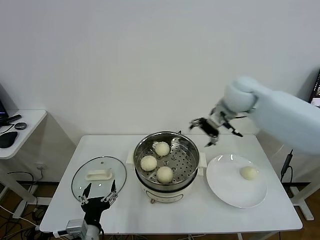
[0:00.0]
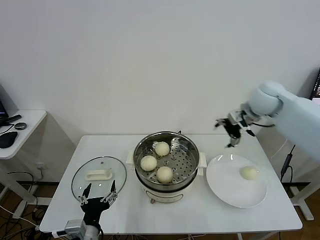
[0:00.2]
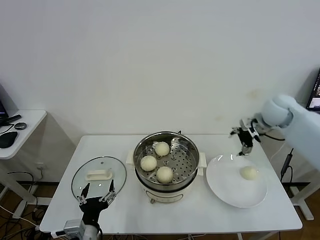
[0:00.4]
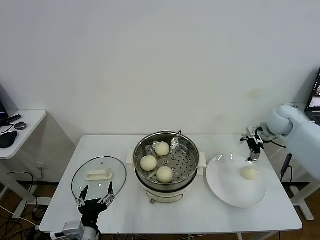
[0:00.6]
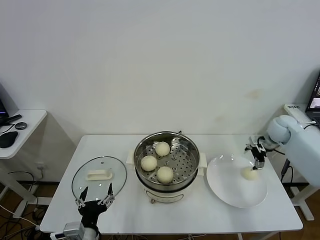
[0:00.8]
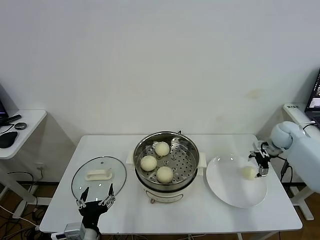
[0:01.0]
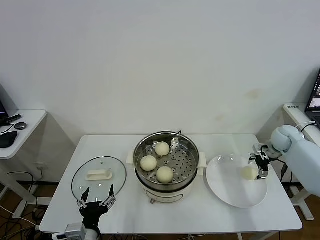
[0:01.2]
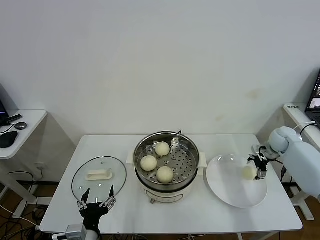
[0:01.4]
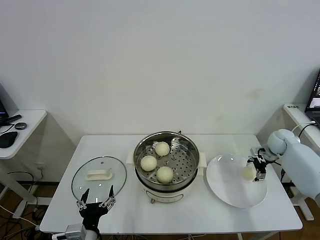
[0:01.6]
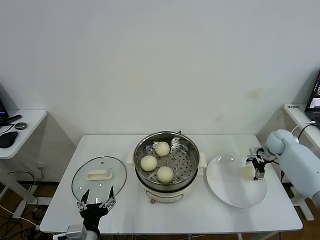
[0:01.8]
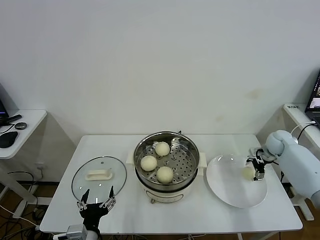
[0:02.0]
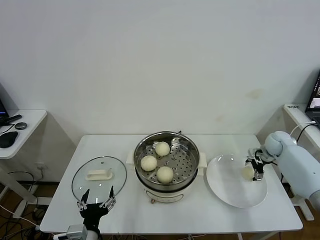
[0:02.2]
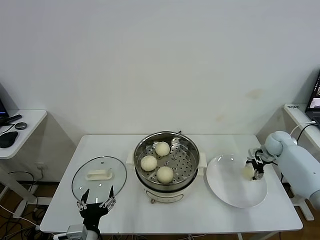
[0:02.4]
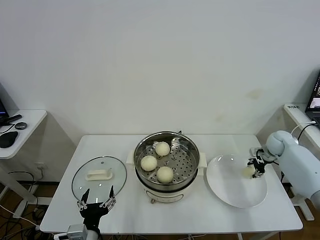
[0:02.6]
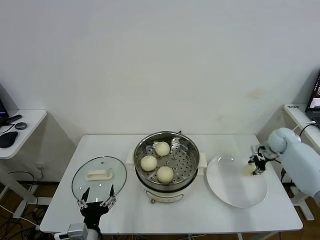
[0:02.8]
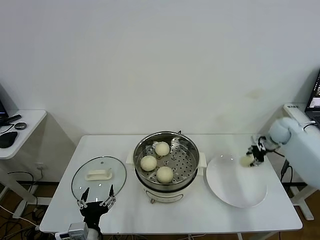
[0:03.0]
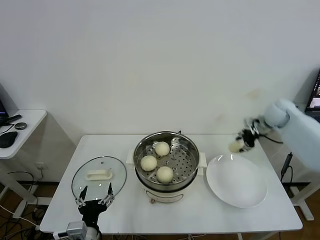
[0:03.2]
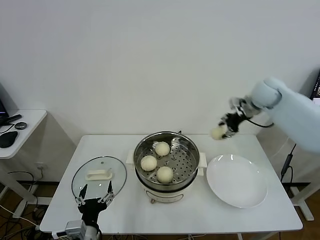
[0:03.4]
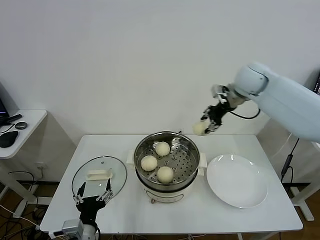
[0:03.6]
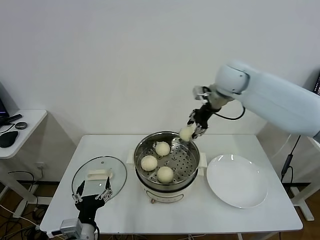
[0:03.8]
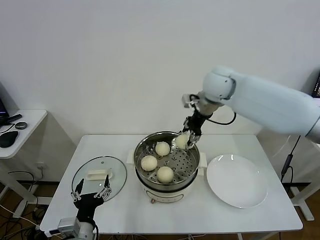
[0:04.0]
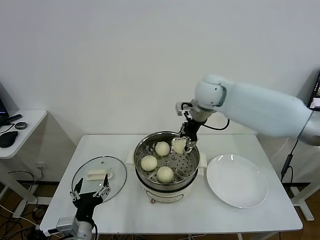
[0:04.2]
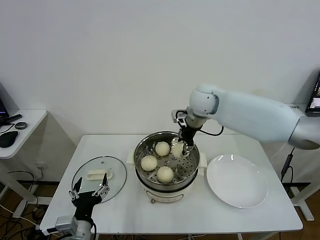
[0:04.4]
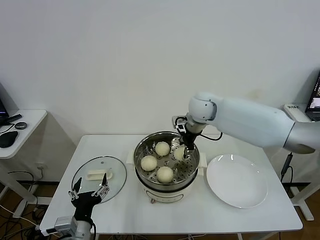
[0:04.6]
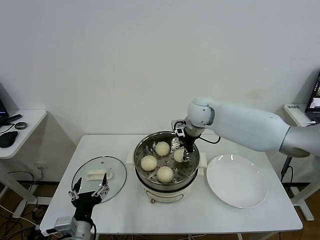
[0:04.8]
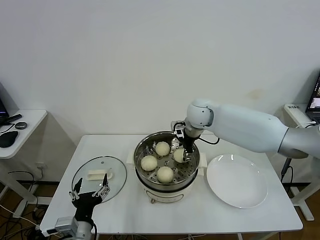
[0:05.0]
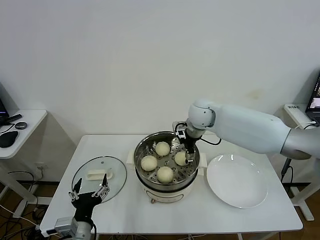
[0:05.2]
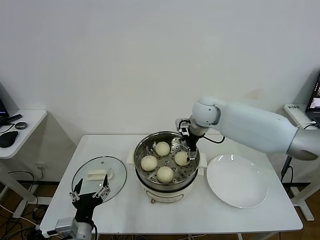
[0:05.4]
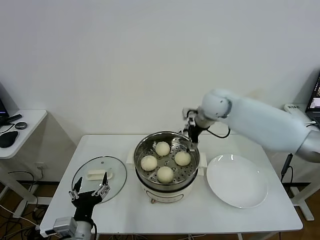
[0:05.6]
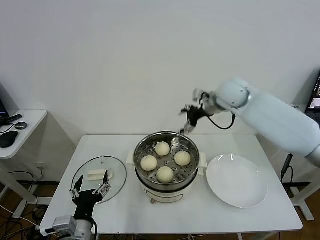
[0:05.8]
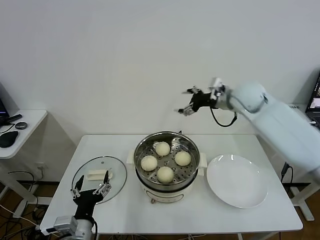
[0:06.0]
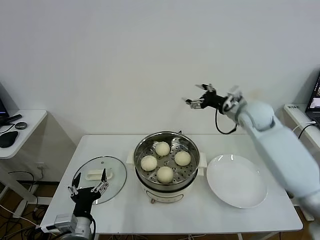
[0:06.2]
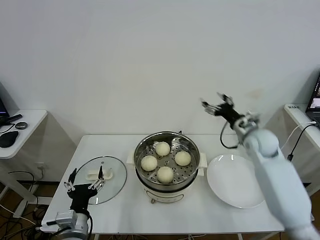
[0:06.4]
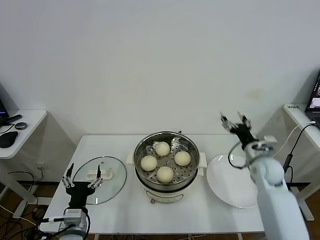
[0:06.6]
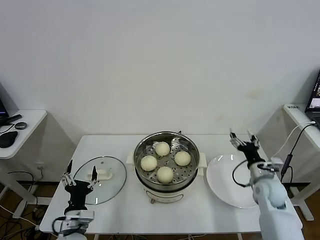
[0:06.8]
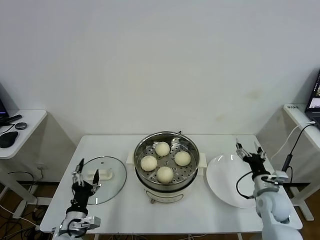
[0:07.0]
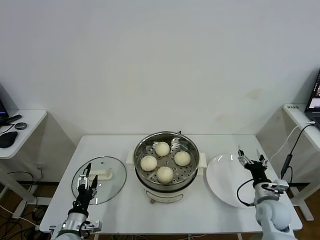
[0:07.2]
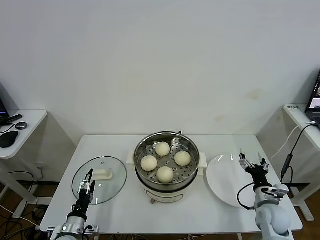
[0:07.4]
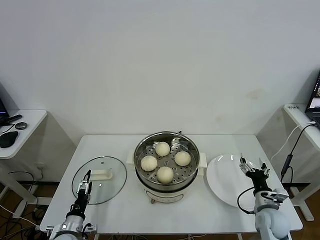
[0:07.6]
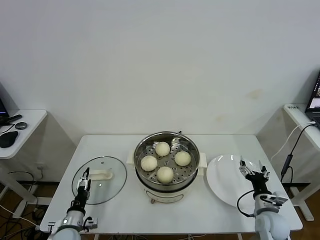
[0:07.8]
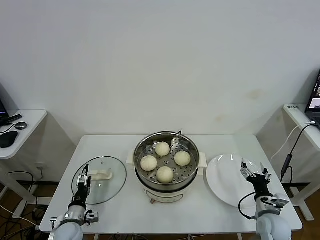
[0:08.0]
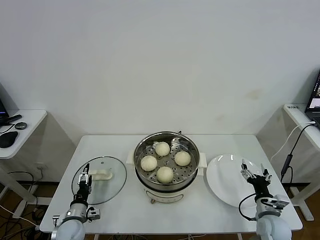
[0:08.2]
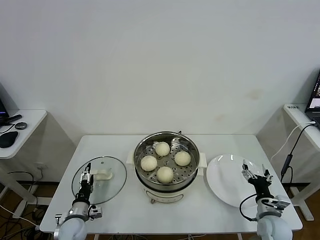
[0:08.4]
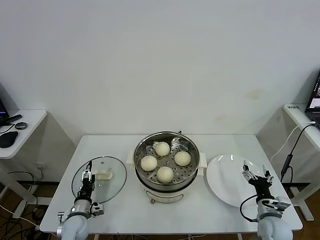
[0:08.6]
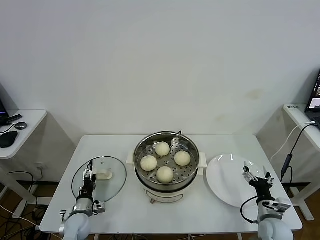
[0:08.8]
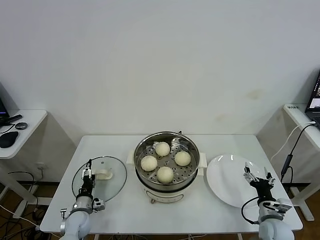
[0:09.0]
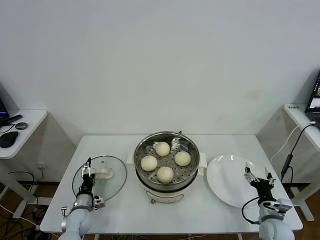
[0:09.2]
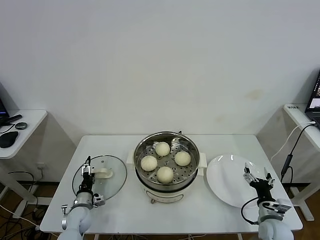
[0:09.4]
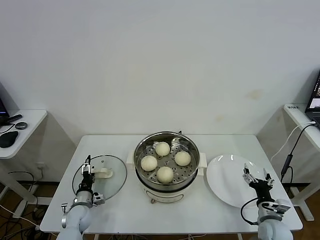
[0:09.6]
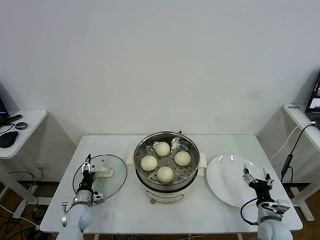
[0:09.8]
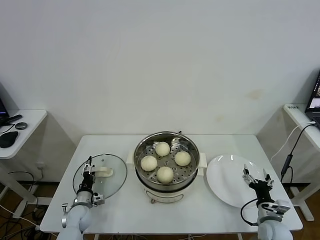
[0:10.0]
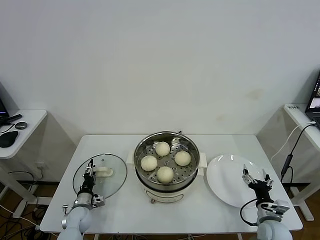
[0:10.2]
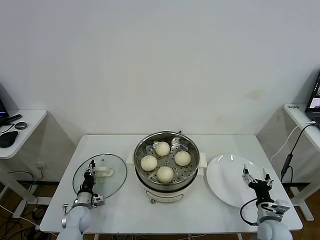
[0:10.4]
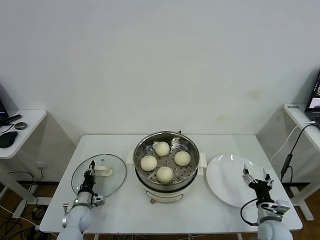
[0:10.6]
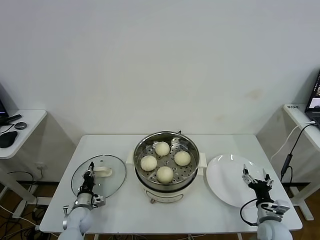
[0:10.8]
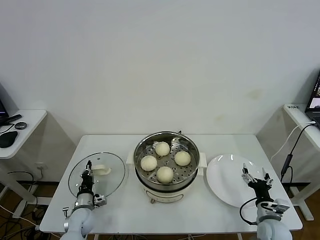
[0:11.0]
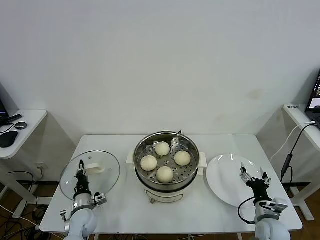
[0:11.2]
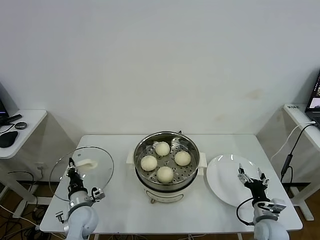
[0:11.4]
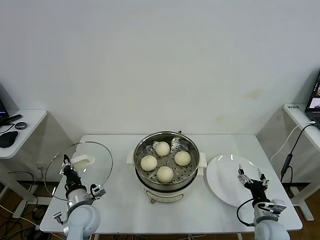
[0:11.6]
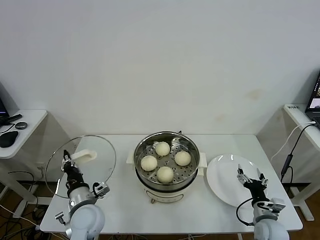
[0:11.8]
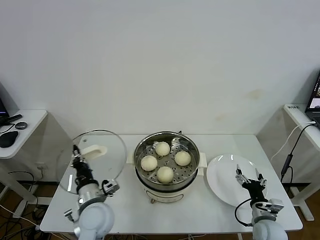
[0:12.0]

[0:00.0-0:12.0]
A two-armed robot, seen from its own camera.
Task of the whole recording: take steamed baozi put them in steamer.
Step, 0:00.0 to 0:02.6: Grasp the baozi in the plate with right gripper.
Step, 0:02.8 to 0:05.2: Place the baozi on the steamer with right gripper.
Step, 0:05.6 to 0:10.8: Grasp the pot lid with left gripper.
0:00.0 to 0:01.6: The right gripper moves to the right and downward, approximately 30 cm.
0:01.6 to 0:03.0: The right gripper is displaced upward by roughly 5 cm, and closes up.
0:03.0 to 0:04.4: The right gripper heads to the left, covering approximately 35 cm.
0:04.4 to 0:06.0: The right gripper travels to the right by about 10 cm, and opens.
0:06.0 to 0:07.6: The right gripper heads downward and backward, covering about 40 cm; the left gripper moves downward and to the left, roughly 20 cm.
0:07.6 to 0:09.0: The left gripper shifts approximately 10 cm forward.
0:09.0 to 0:10.4: The left gripper closes its fingers.
0:10.4 to 0:12.0: The left gripper shifts approximately 25 cm upward and to the right.

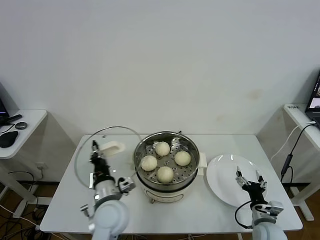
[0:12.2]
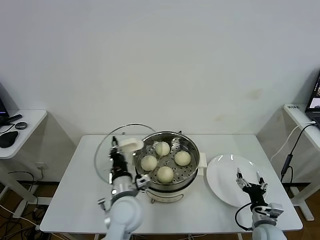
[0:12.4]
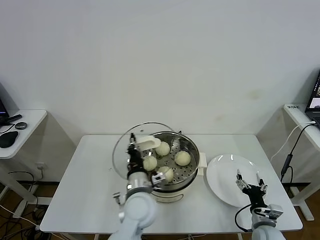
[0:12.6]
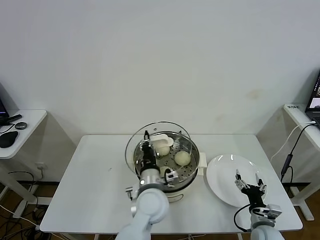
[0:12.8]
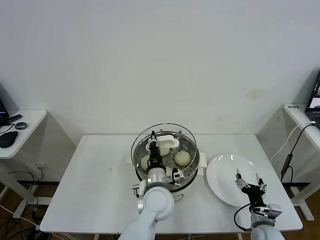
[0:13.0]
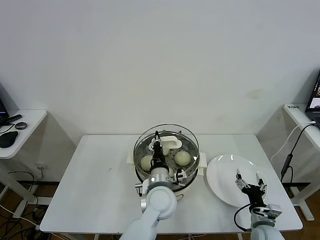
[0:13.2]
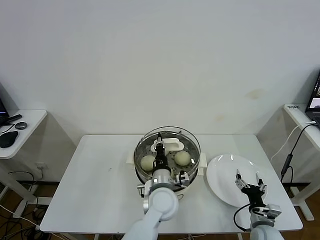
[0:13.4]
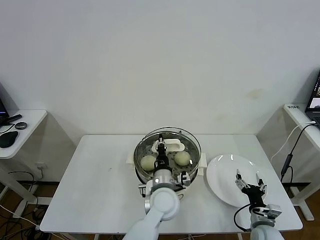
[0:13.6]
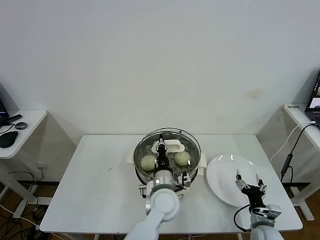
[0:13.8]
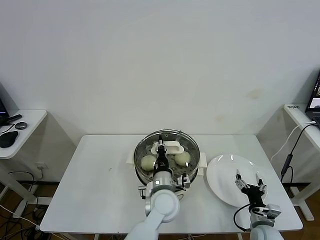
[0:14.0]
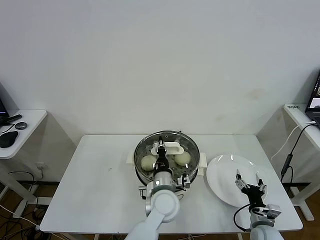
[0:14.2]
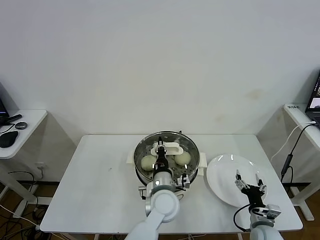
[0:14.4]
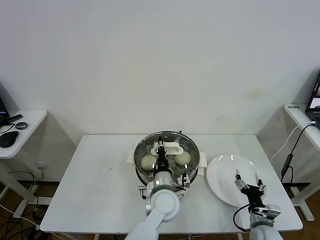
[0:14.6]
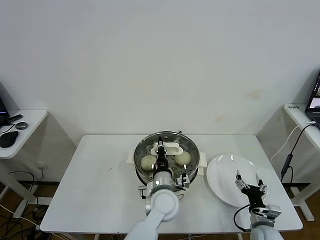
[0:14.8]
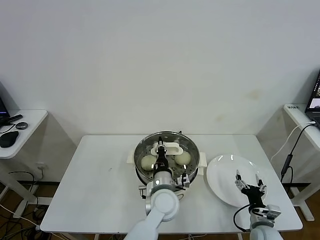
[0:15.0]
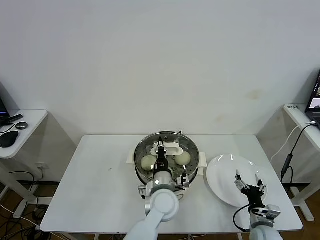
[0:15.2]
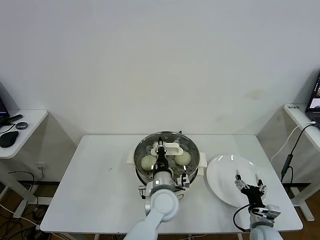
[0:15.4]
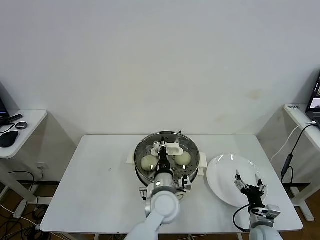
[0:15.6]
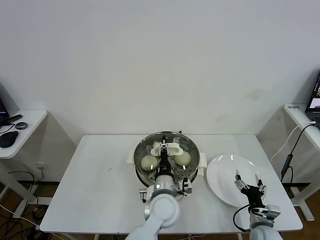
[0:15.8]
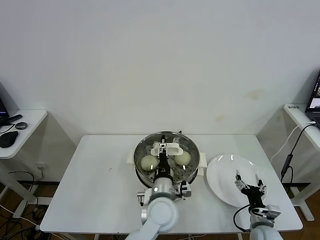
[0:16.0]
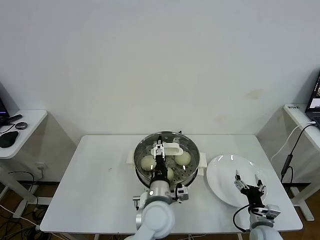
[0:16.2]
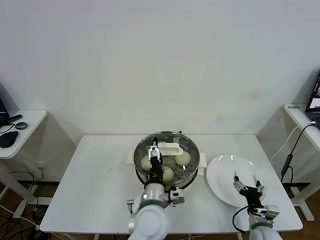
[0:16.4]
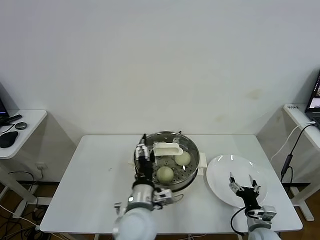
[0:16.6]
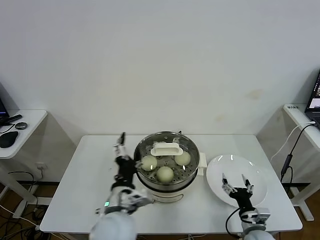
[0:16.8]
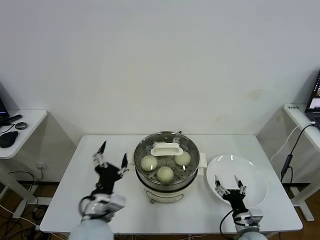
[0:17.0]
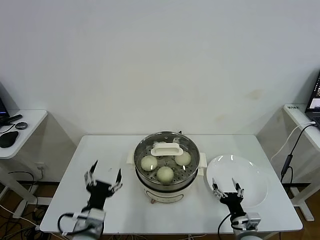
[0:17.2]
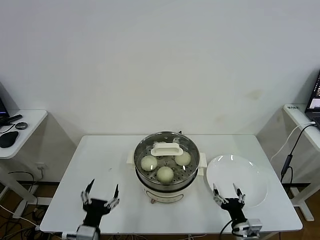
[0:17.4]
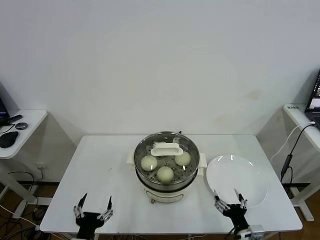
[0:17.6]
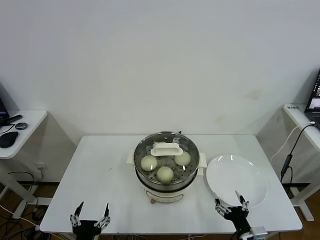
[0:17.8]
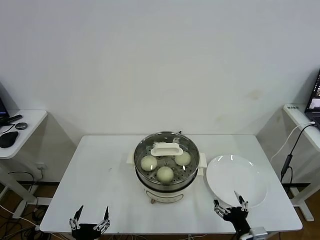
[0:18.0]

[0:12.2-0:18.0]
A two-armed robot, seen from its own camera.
Task of the whole recording: take steamed baozi put them in steamer.
Step, 0:12.2 to 0:16.4: Place the pot lid on the steamer with left gripper.
0:12.2 to 0:13.6: The left gripper moves to the right, some 15 cm.
0:13.6 to 0:15.0: Both grippers stay put.
0:15.0 to 0:16.6: The left gripper goes about 10 cm backward, to the left and upward, and opens.
0:16.6 to 0:18.0: The right gripper moves backward, to the left and upward, roughly 10 cm. Meanwhile the left gripper goes approximately 25 cm to the left, backward and downward.
